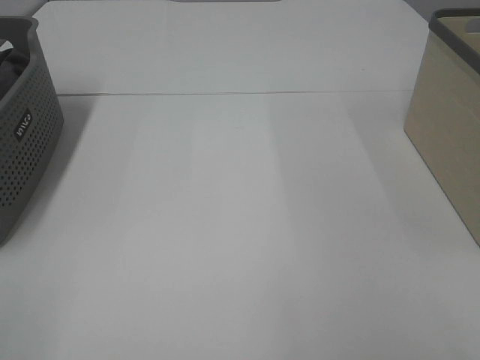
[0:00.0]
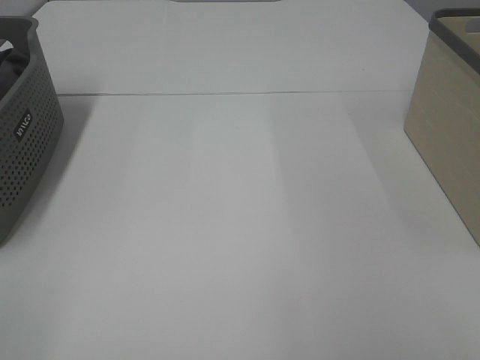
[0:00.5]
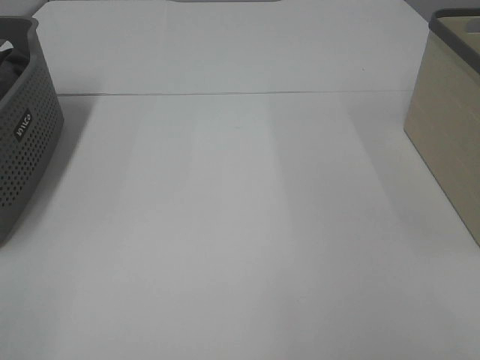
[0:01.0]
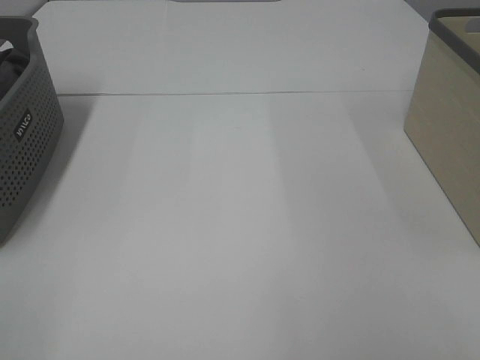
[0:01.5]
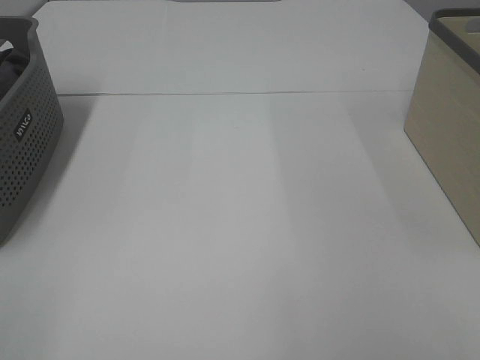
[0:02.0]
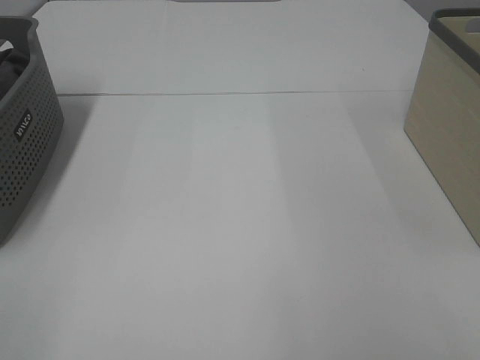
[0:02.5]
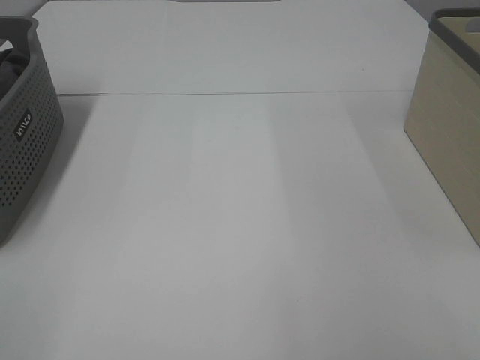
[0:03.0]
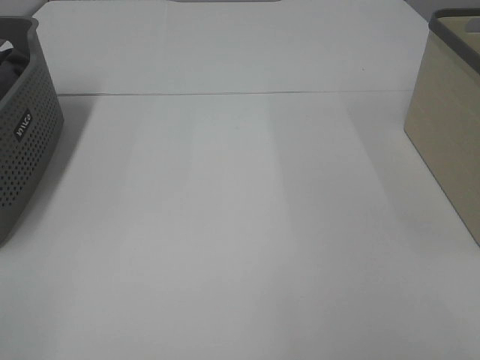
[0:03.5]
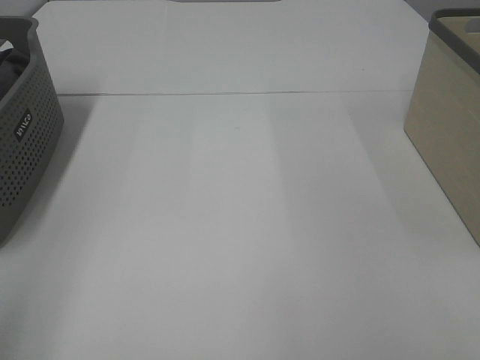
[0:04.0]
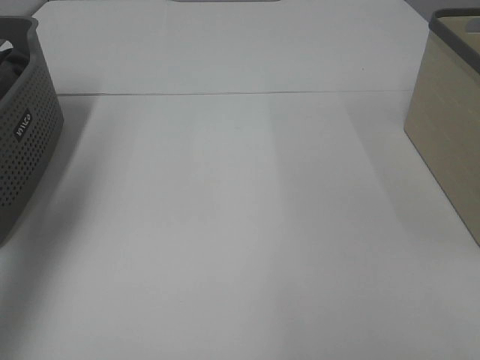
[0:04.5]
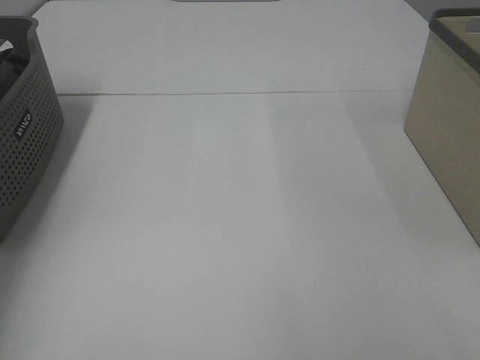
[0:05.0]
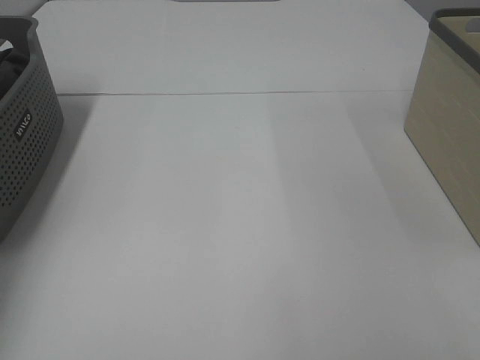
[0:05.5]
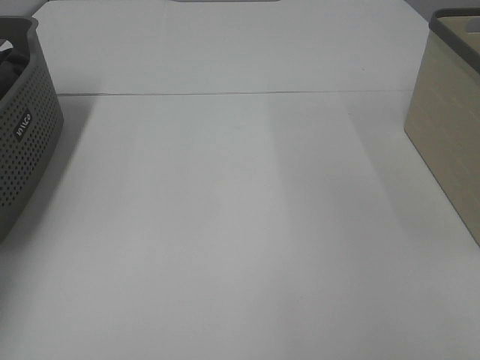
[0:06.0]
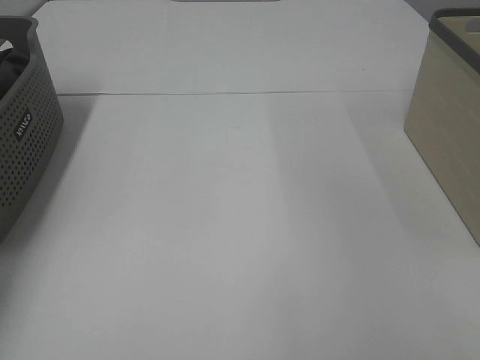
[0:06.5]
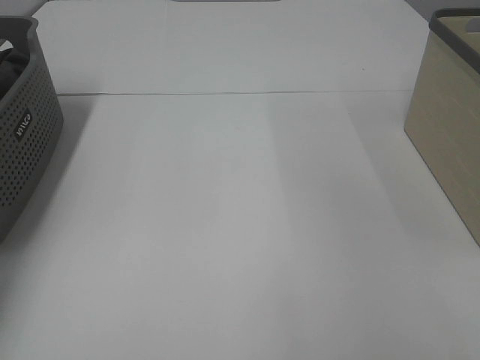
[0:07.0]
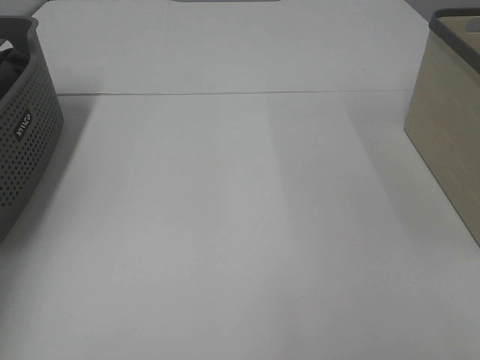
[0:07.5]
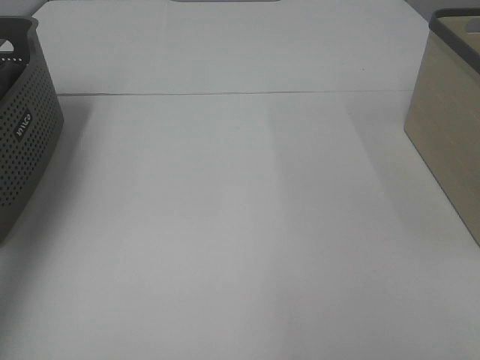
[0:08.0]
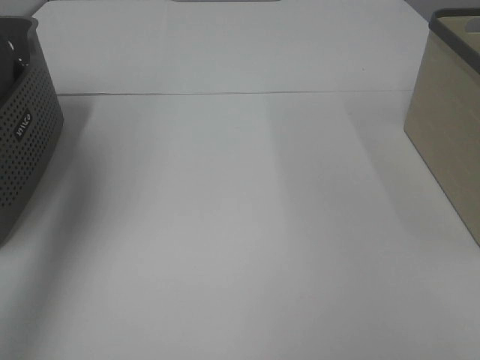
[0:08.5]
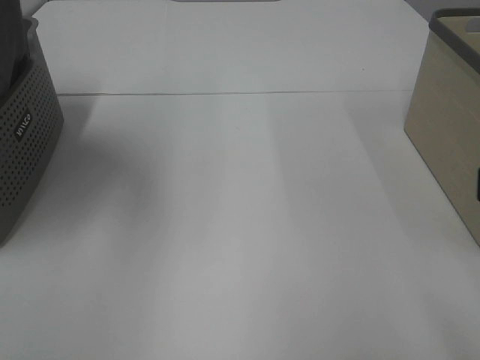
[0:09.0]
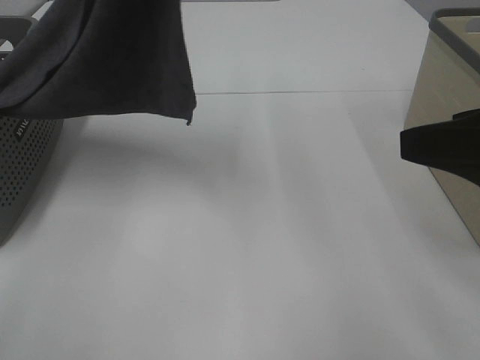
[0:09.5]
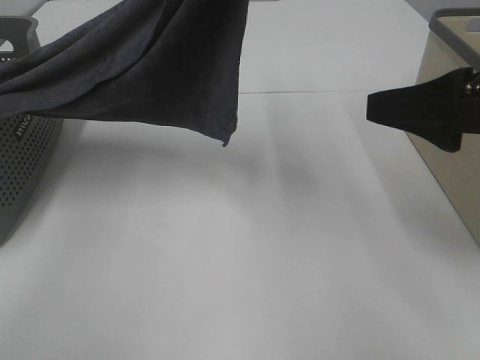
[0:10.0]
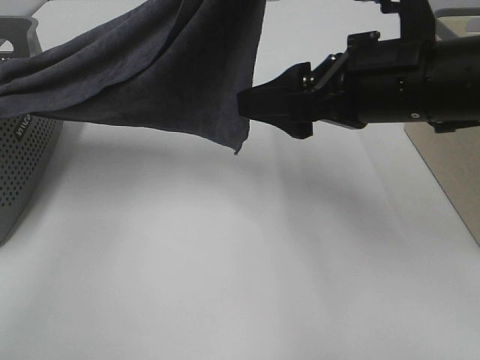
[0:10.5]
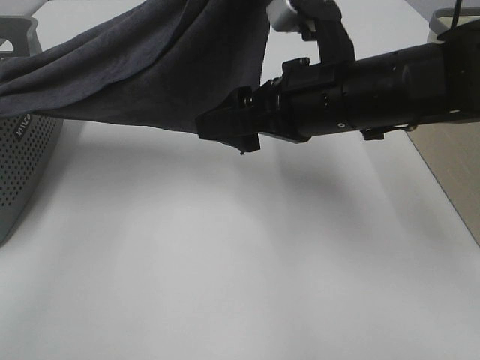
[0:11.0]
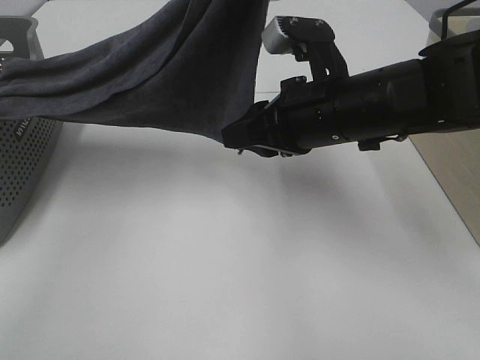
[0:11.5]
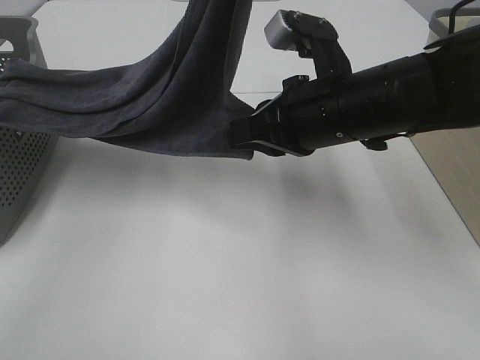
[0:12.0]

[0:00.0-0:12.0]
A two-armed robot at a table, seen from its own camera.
Task of the whole recording: Remove the towel and place it.
Step, 0:08.5 to 0:11.5: Right hand: grab a corner of the grey towel and straighten it.
0:00.0 to 0:02.0: Both grippers stay about where they are.
0:04.0 to 0:06.0: The left gripper moves forward and downward, approximately 40 cm.
0:06.0 to 0:08.0: The left gripper is displaced upward and backward by some 25 cm, and closes up.
0:08.0 to 0:10.0: The right gripper shifts roughly 20 cm forward. Meanwhile the left gripper goes roughly 35 cm to the right.
0:10.0 to 0:12.0: The right gripper shifts roughly 15 cm to the left, forward and downward, and closes up.

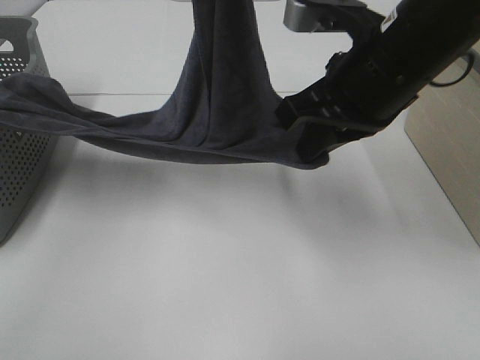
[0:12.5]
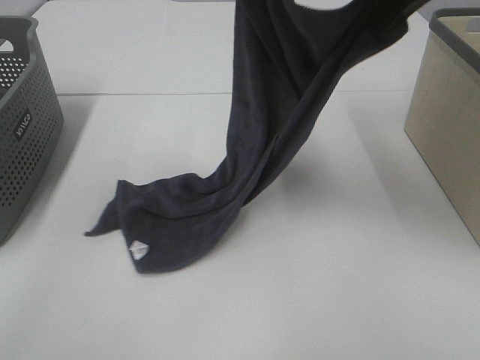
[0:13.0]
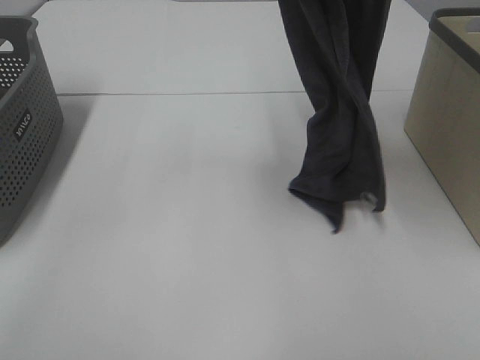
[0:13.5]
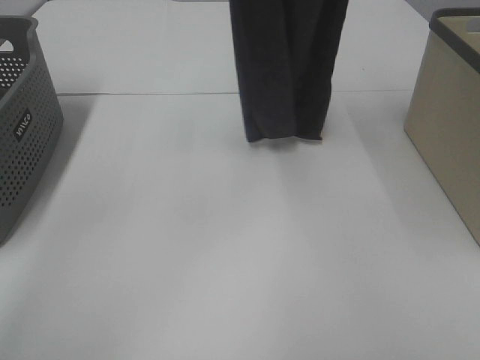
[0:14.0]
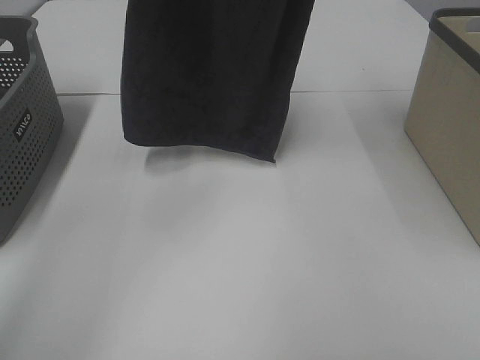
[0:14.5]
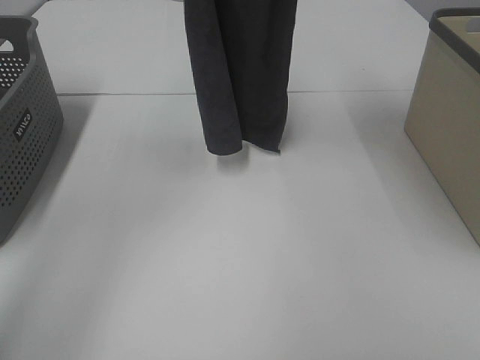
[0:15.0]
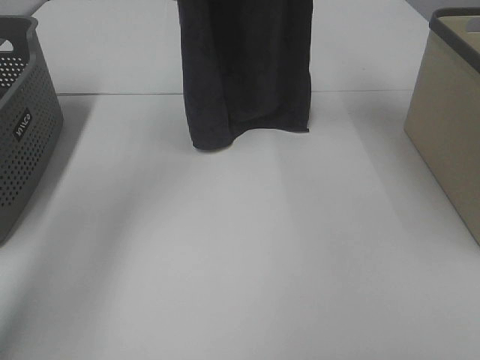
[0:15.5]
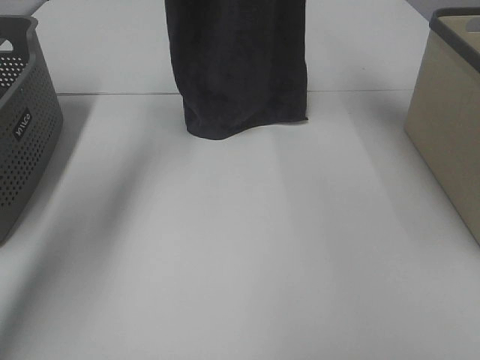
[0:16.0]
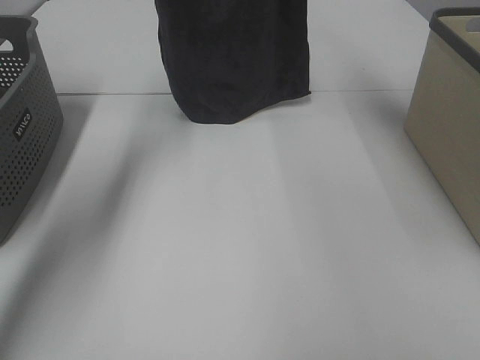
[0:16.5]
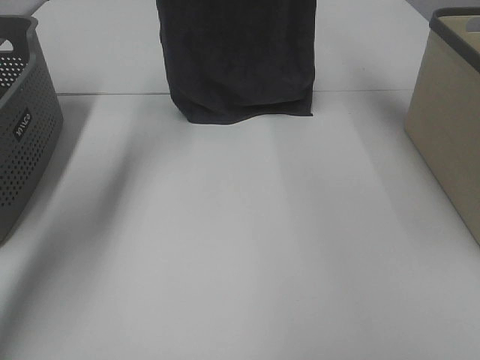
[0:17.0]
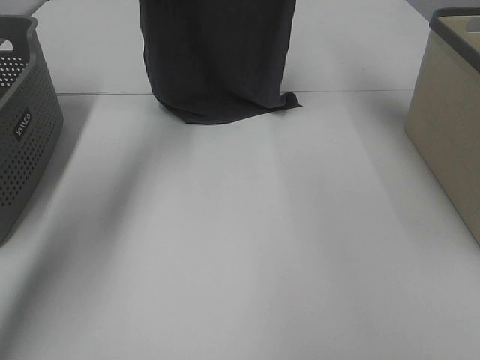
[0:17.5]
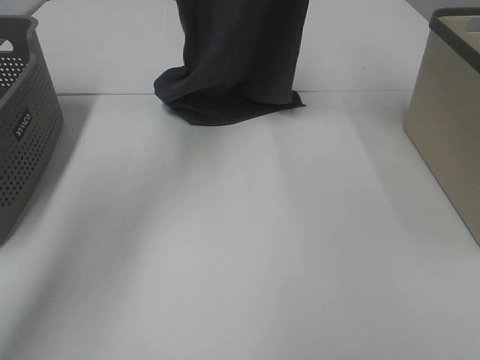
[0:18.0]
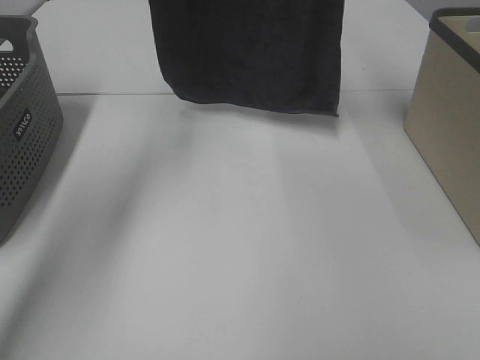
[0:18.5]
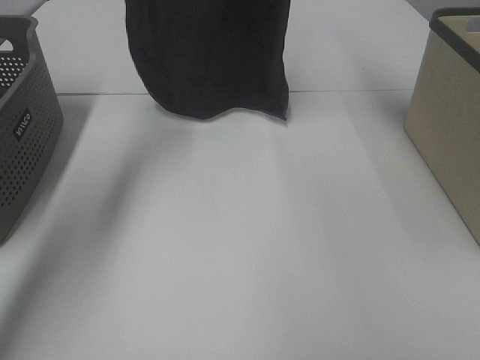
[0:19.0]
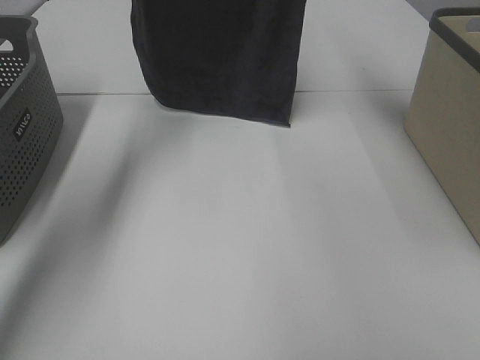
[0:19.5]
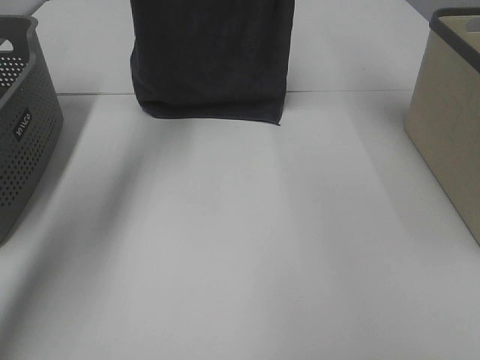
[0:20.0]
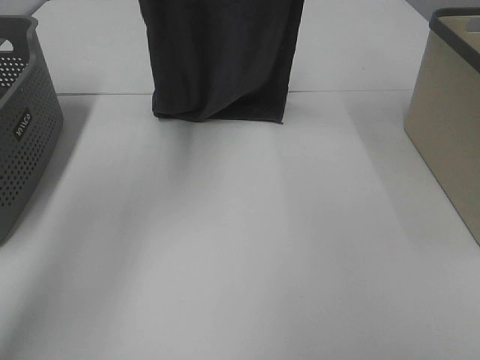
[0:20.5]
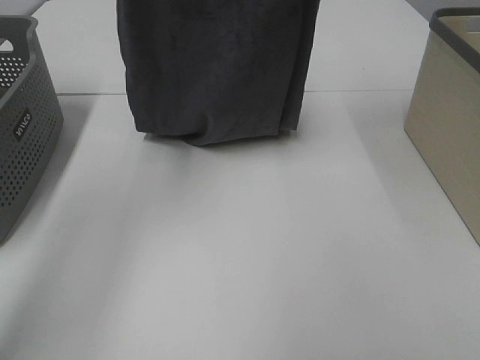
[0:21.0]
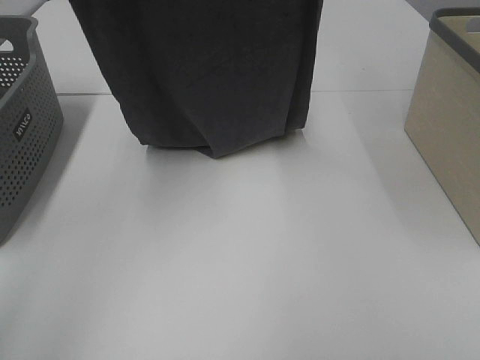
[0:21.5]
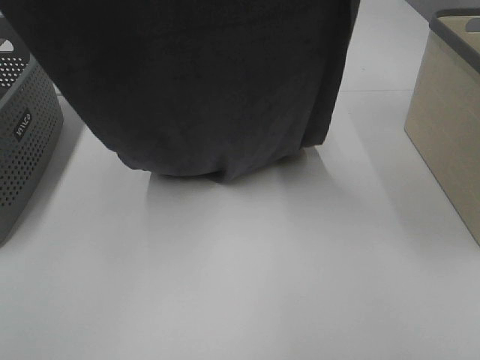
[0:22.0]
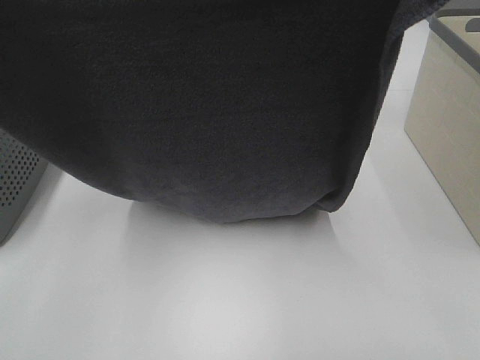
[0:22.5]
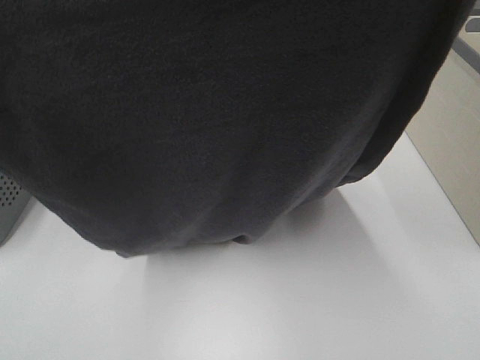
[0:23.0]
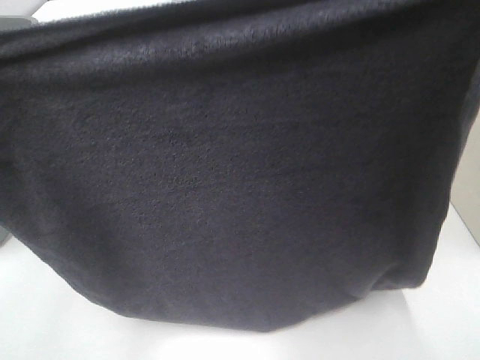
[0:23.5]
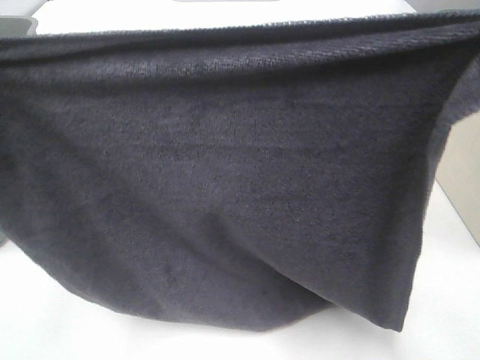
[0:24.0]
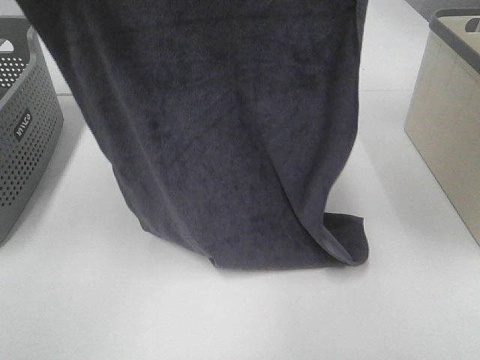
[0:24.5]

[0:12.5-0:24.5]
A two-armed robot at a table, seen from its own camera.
Task of the whole recording: Remove the towel and place it.
0:12.5 to 0:14.5: The right gripper heads upward, covering roughly 25 cm; the left gripper travels upward, to the left and forward by about 15 cm.
0:14.5 to 0:16.5: The right gripper heads forward, covering some 15 cm, while the left gripper goes approximately 15 cm forward, downward and to the left.
0:16.5 to 0:18.5: The right gripper ends up roughly 5 cm from where it was.
0:18.5 to 0:20.5: The left gripper ends up roughly 5 cm from where it was; the right gripper moves about 5 cm.
0:20.5 to 0:22.5: Both grippers travel together backward, about 25 cm.
0:22.5 to 0:24.5: The grippers both shift forward by about 10 cm.

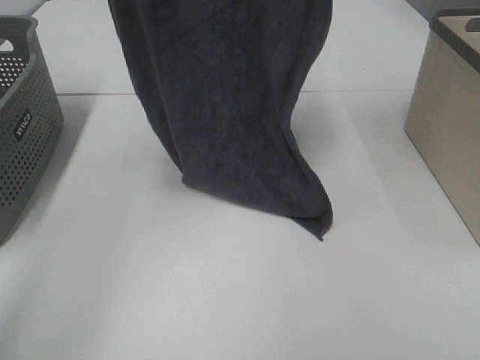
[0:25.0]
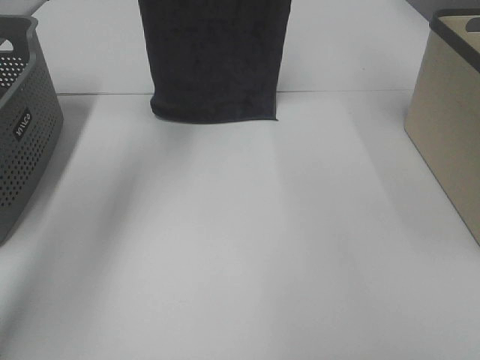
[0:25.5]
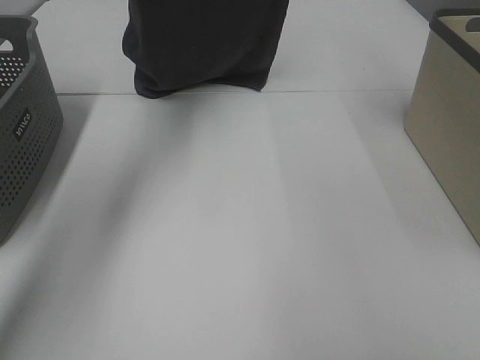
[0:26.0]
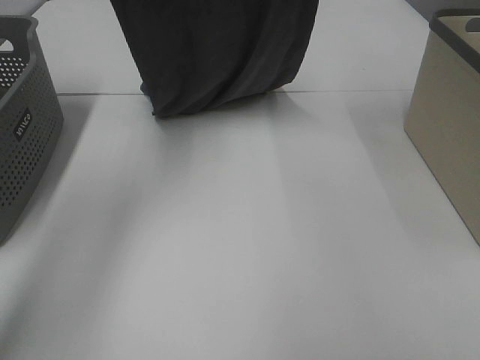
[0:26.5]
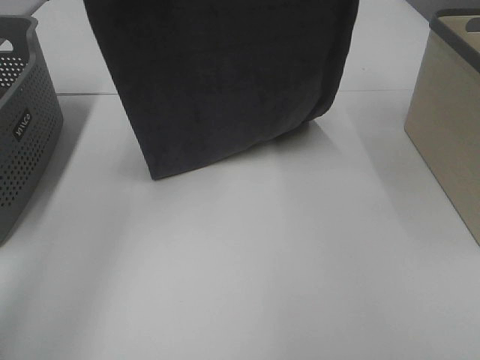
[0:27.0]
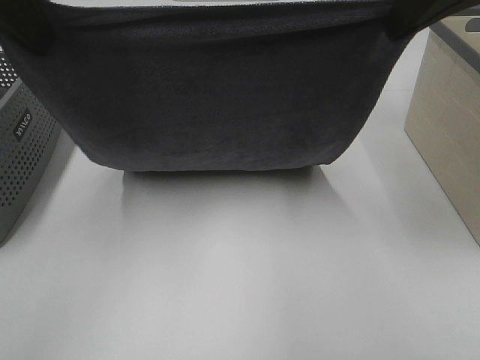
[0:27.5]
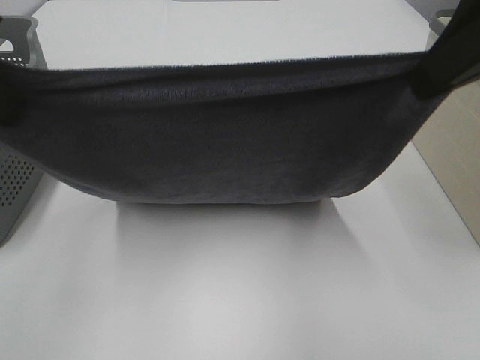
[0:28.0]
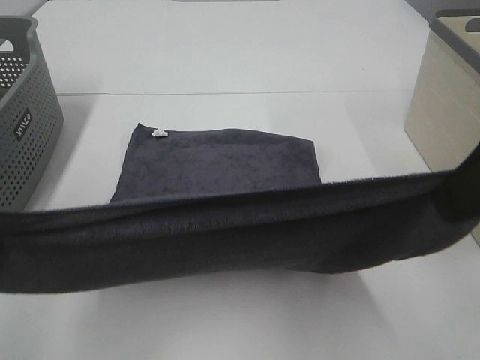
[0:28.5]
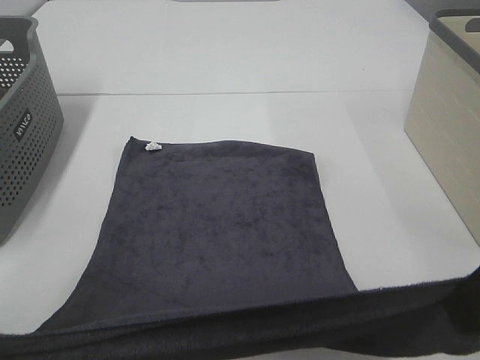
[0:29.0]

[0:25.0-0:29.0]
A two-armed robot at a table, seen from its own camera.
Task of the whole recording: Remove the towel and place it.
0:25.0 to 0:27.0: The right gripper is displaced downward by some 5 cm, while the left gripper heads downward, covering some 10 cm, and moves some 10 cm forward and comes back.
0:27.0 to 0:29.0: Both grippers travel together backward and downward, some 30 cm.
